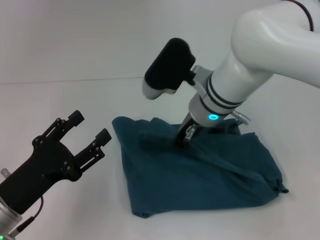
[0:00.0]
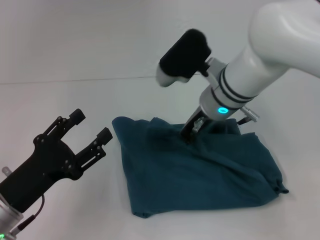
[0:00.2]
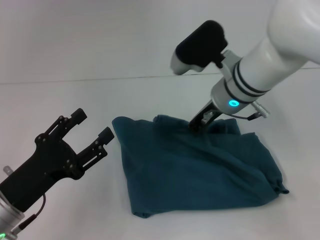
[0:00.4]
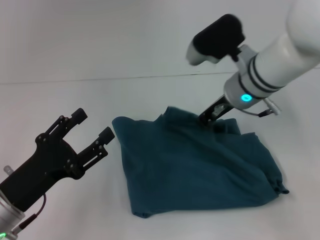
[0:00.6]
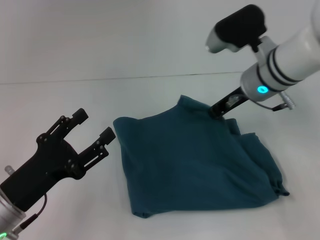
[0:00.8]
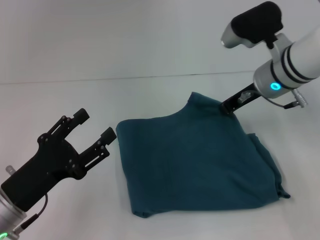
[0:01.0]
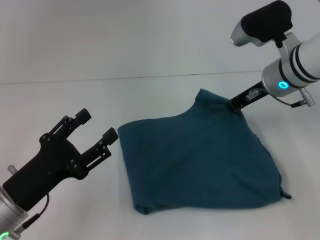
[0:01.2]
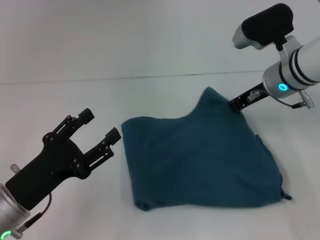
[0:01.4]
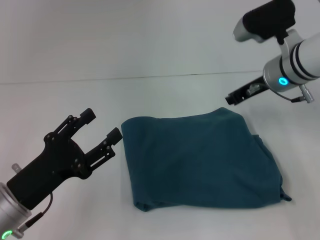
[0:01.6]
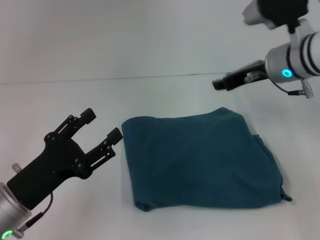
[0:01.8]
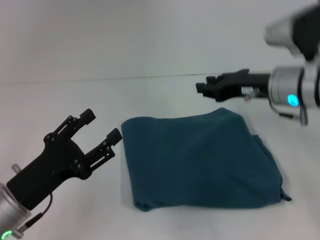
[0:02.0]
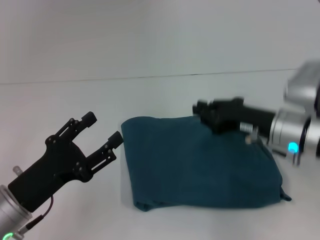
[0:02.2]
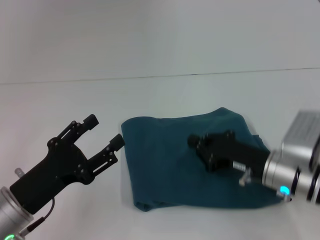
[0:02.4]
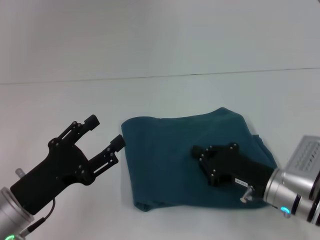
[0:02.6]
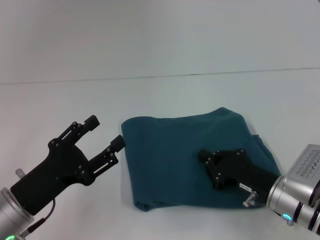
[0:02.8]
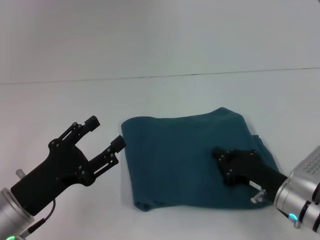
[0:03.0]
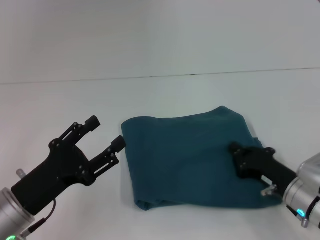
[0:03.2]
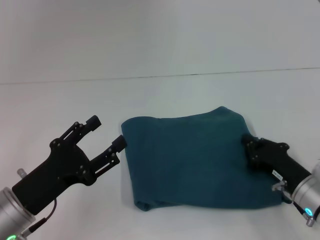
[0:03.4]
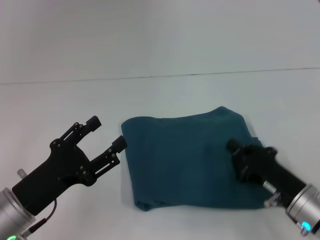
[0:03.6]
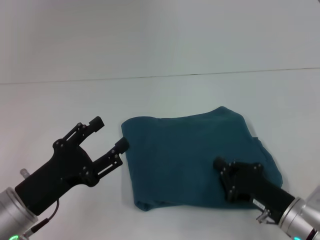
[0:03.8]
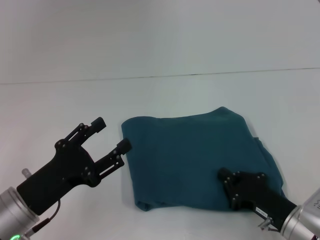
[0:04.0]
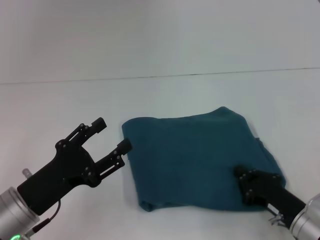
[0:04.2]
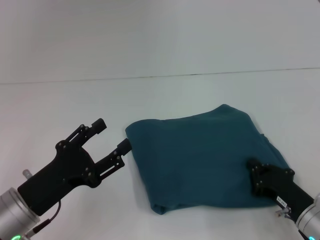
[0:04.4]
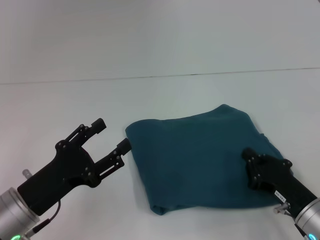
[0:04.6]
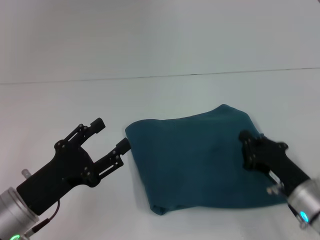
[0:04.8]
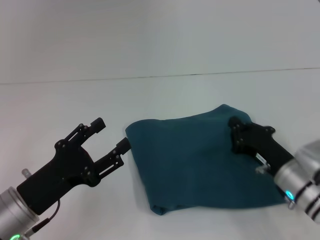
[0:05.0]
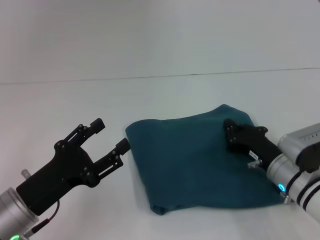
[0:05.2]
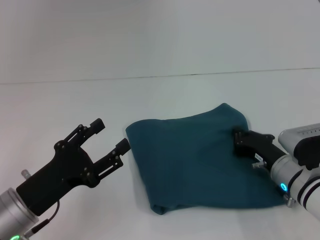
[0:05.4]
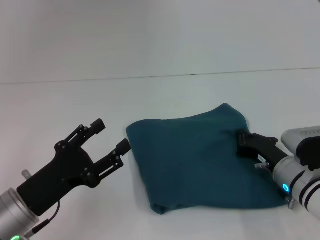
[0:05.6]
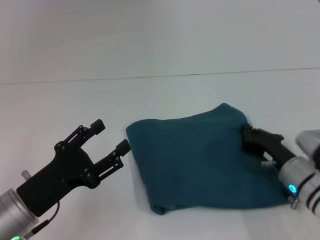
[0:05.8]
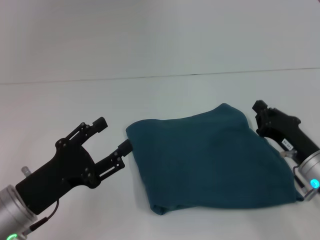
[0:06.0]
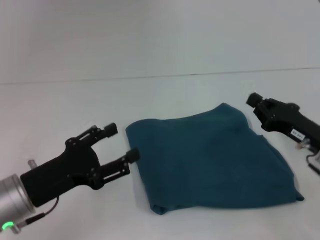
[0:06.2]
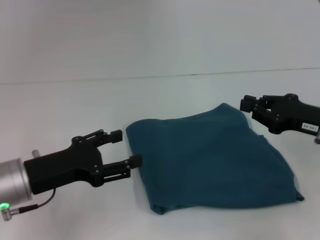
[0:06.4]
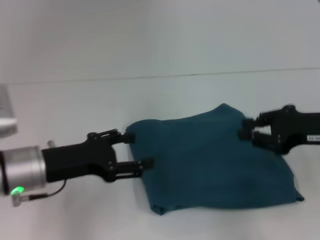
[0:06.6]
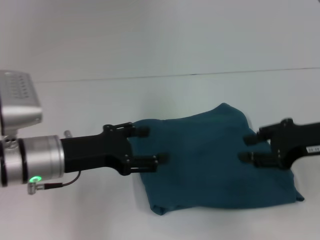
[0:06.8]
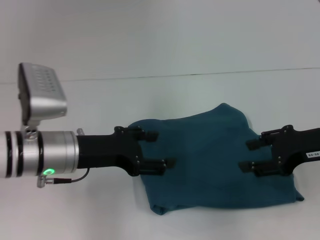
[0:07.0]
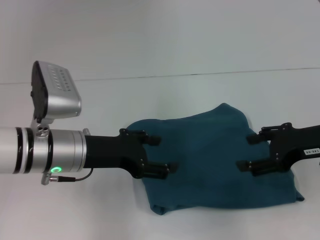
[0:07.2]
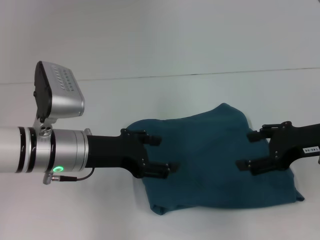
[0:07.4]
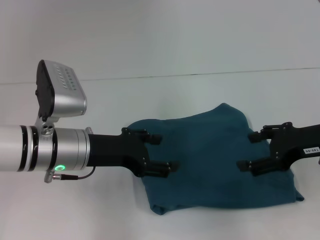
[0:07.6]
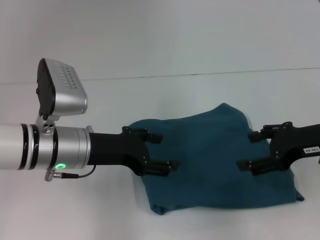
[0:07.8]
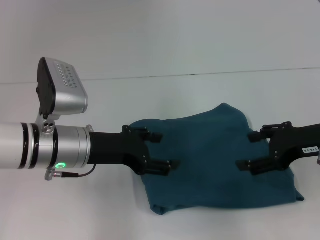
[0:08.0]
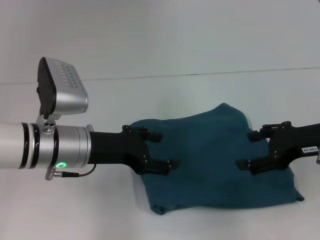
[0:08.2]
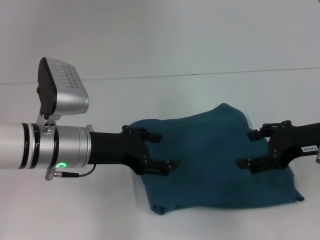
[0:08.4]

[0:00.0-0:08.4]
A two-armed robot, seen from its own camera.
0:00.0 to 0:01.4: The right gripper travels to the right by roughly 15 cm.
0:01.4 to 0:02.8: The right gripper shifts about 20 cm backward and downward, and opens, then closes once more.
0:02.8 to 0:04.2: The right gripper changes place by roughly 5 cm.
0:04.2 to 0:05.6: The right gripper is displaced forward by some 10 cm.
0:05.6 to 0:07.0: The left gripper shifts about 10 cm forward and upward. The right gripper moves upward, about 15 cm, and opens.
0:07.0 to 0:08.4: The right gripper opens up.
